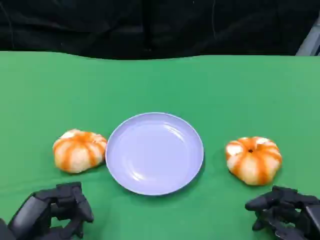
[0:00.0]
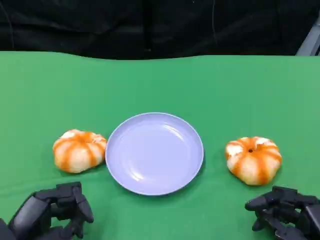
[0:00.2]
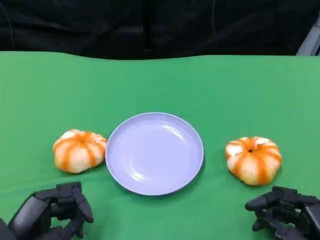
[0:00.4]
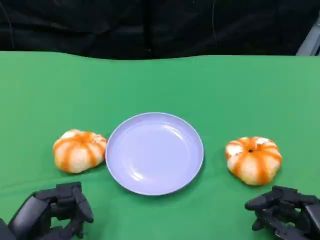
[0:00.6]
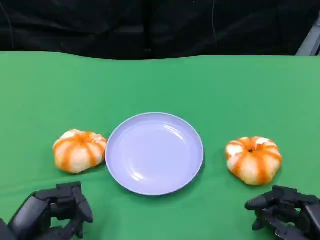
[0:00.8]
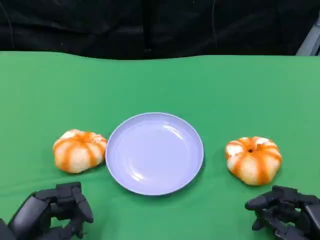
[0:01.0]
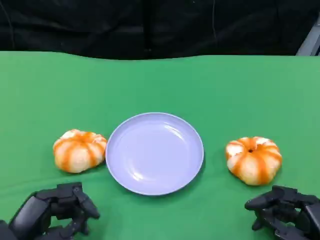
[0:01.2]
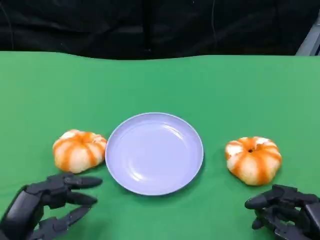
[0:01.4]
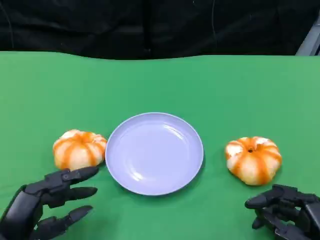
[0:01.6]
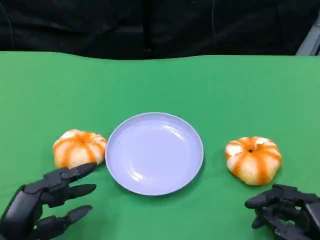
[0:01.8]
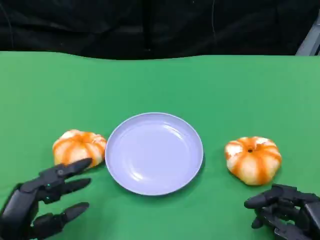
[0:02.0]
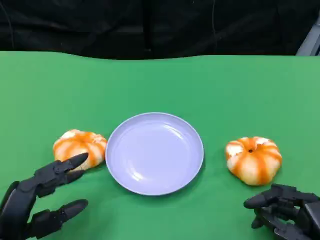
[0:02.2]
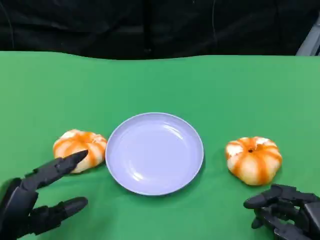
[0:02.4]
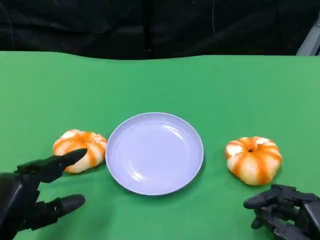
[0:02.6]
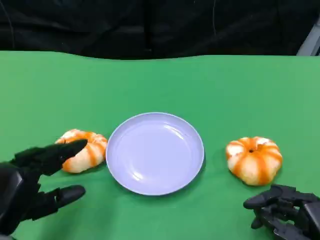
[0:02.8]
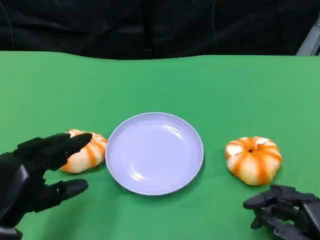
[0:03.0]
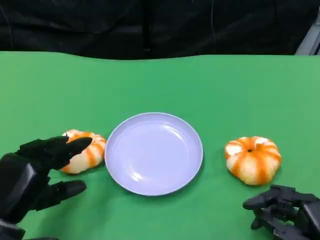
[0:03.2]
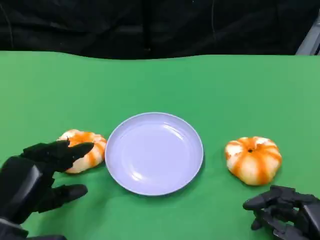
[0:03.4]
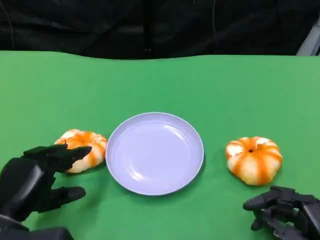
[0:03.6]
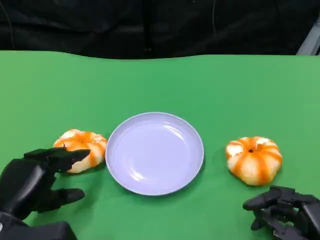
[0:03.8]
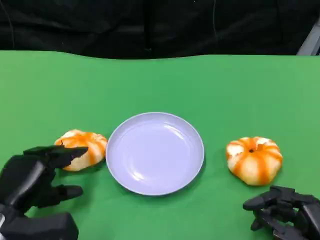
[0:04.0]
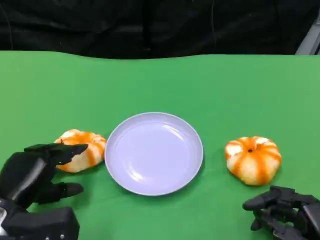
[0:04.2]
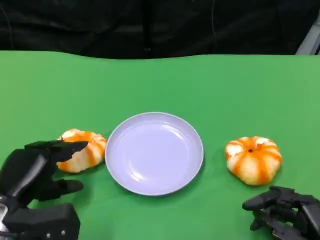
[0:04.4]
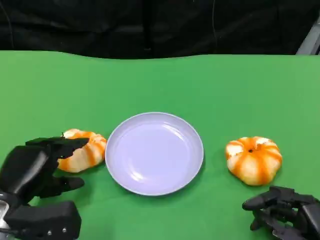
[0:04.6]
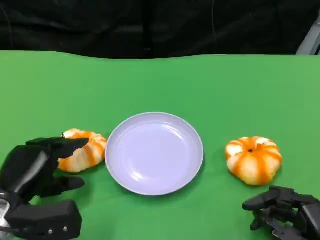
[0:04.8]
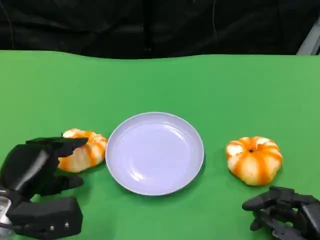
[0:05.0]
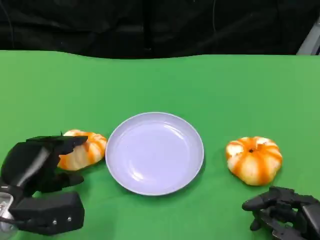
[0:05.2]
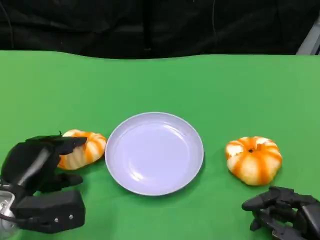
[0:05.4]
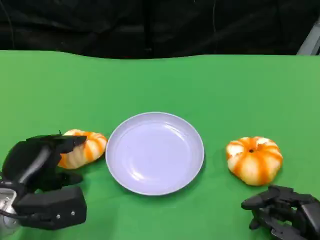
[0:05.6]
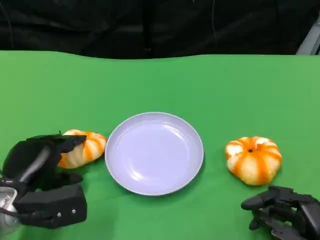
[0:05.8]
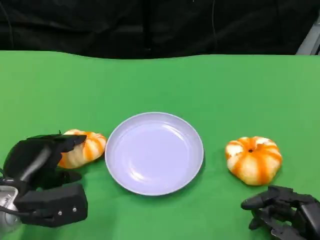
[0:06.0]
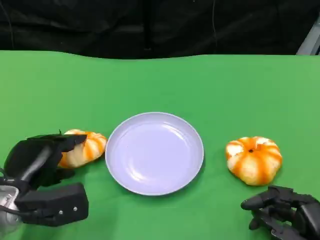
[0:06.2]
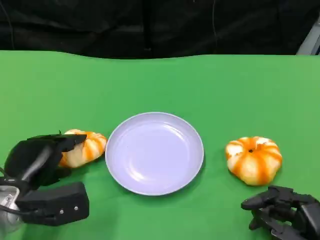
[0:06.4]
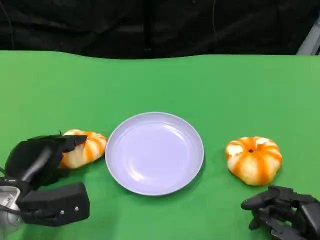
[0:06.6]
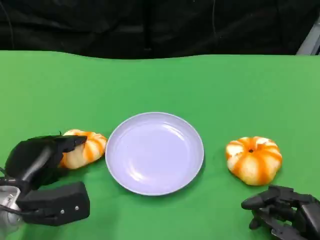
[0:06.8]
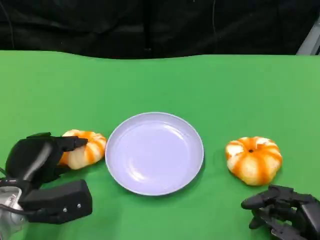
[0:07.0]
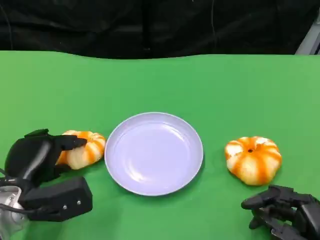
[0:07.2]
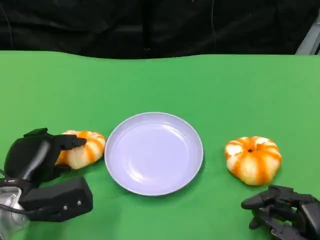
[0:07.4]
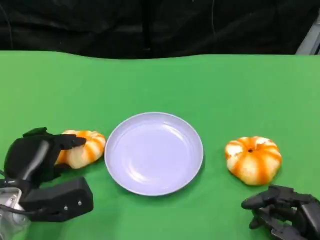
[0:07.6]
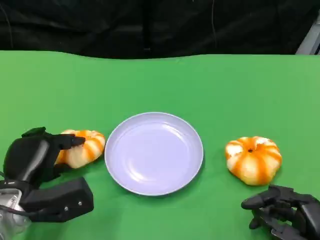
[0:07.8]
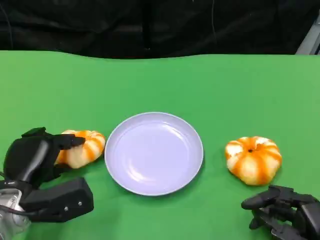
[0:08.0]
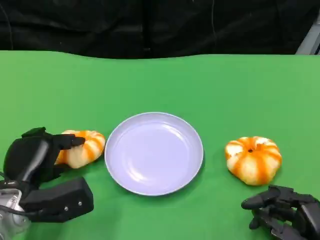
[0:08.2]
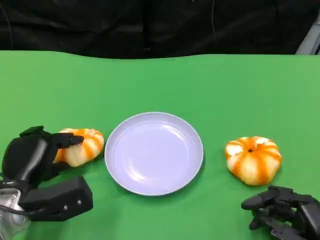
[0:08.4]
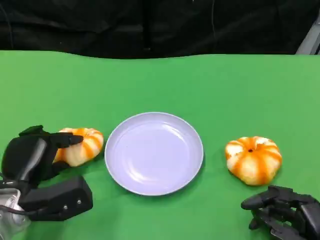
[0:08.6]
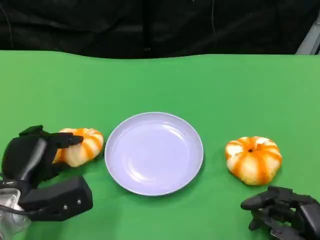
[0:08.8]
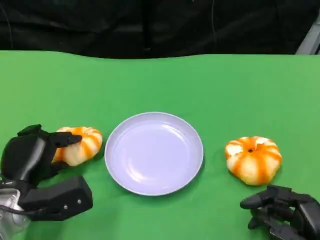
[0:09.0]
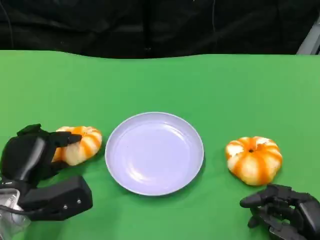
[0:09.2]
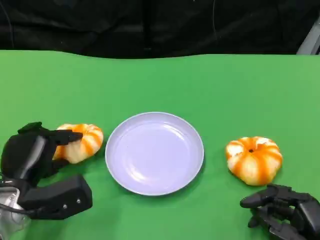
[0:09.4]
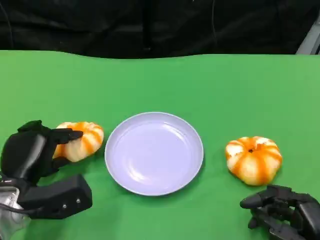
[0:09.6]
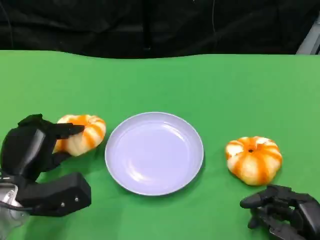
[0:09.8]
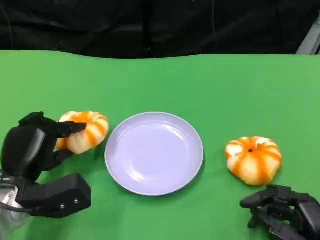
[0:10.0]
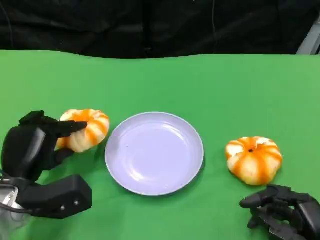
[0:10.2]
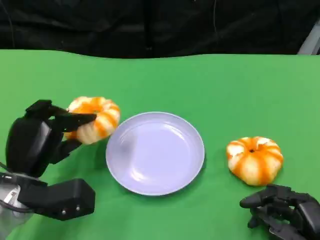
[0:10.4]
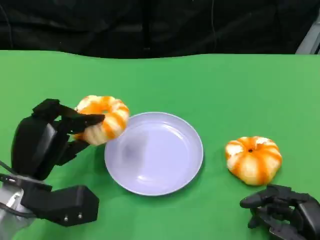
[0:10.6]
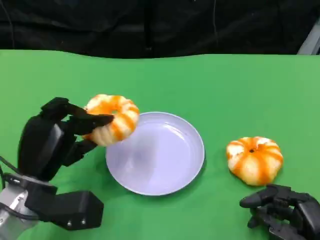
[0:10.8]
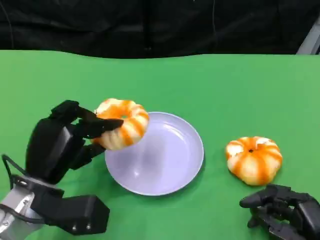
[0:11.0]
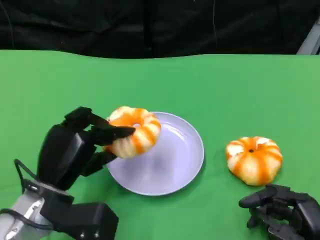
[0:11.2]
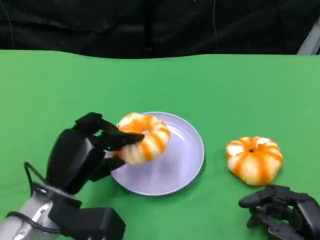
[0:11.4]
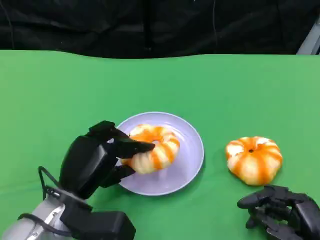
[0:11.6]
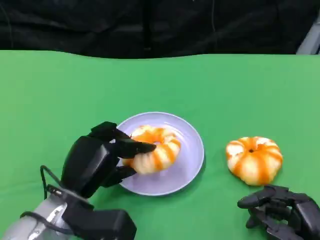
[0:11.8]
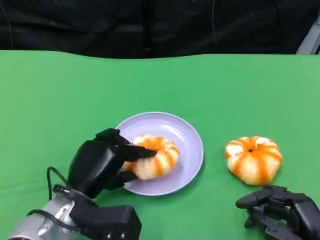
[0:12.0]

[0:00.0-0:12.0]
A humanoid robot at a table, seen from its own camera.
Task of the whole recording: Grasp the bread from the table and place it into the plate.
0:00.0 to 0:01.6: The hands make only small movements.
0:03.0 to 0:04.4: The left hand moves about 5 cm.
0:04.4 to 0:07.6: The hands make only small movements.
0:07.6 to 0:09.0: Neither hand changes place.
0:09.0 to 0:10.4: The hands make only small movements.
0:10.4 to 0:12.0: The left hand moves to the right, approximately 5 cm.

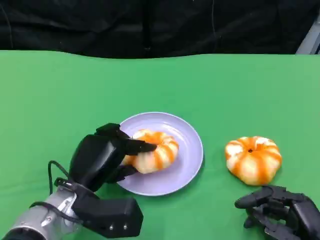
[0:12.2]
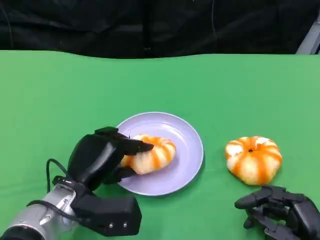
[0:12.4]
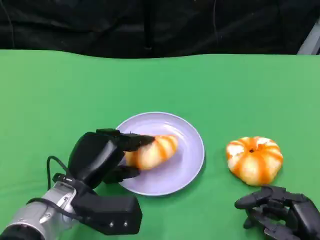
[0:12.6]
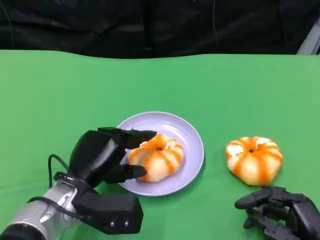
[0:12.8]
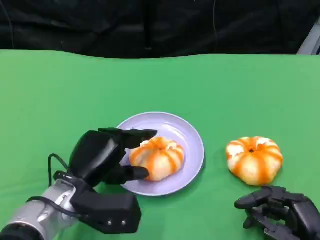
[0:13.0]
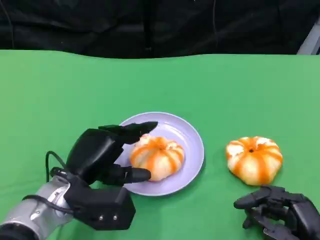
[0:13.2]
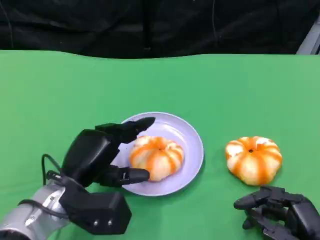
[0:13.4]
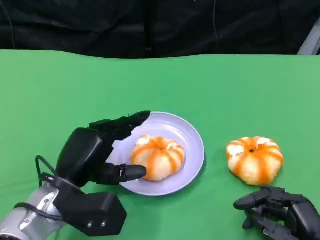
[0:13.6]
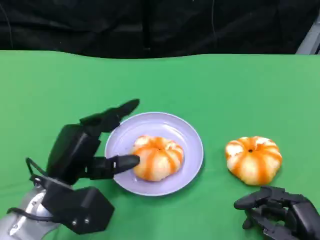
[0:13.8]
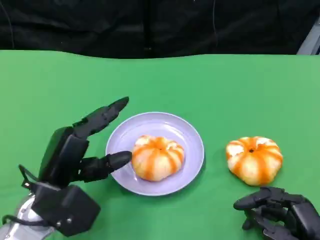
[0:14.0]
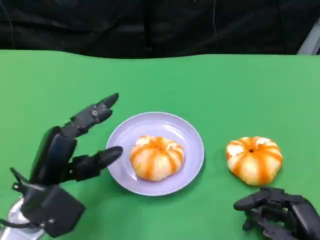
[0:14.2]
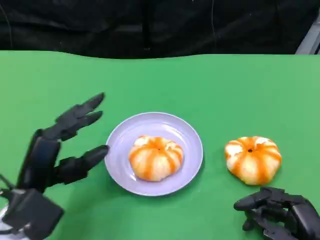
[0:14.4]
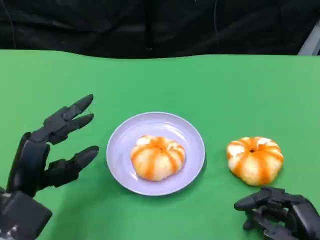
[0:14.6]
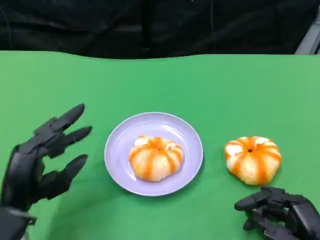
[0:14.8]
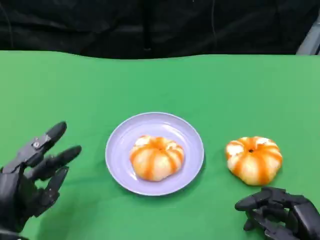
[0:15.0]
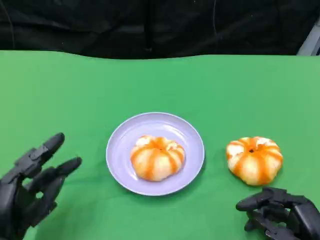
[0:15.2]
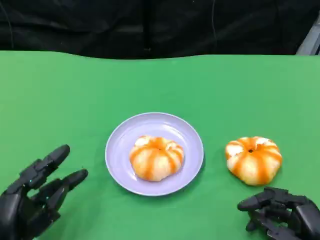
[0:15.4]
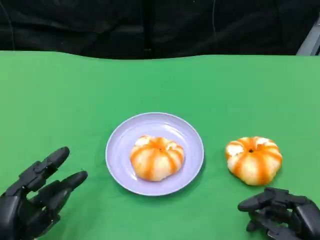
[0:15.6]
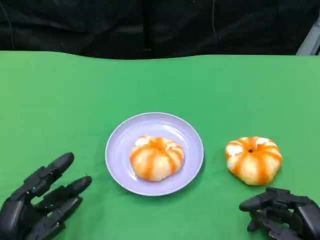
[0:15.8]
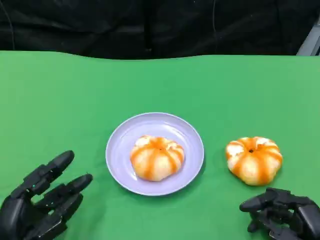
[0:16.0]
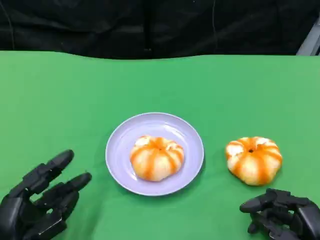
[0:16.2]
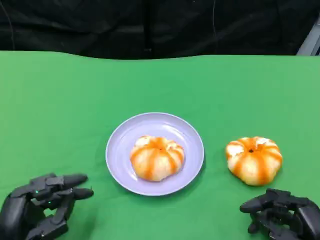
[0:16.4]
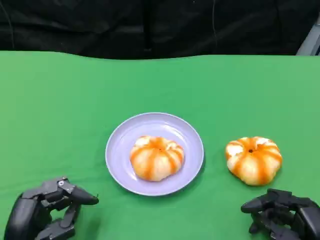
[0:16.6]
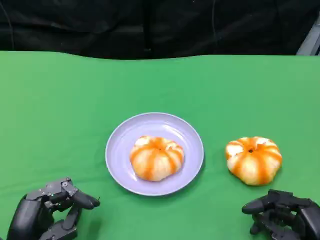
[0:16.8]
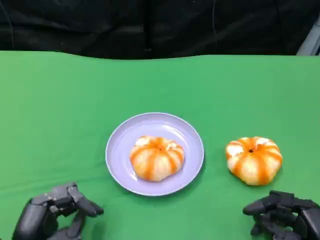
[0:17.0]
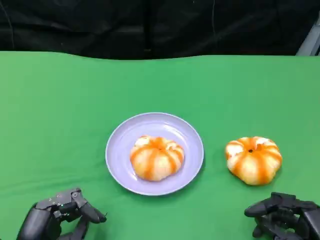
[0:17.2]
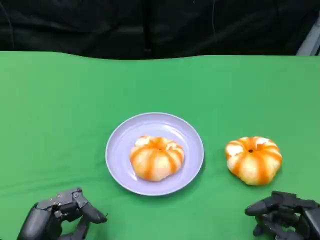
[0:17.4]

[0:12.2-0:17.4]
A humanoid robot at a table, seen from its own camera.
Task of the whole recording: Grasp the bread from the table and place it into the plate.
0:12.2 to 0:14.0: The left hand moves about 5 cm.
0:14.0 to 0:15.6: The left hand shifts approximately 10 cm backward, to the left and downward.
0:15.6 to 0:17.4: The hands make only small movements.

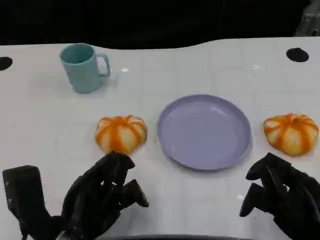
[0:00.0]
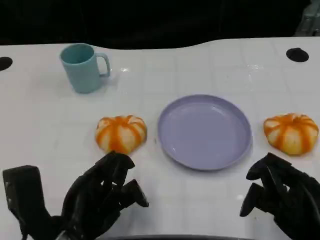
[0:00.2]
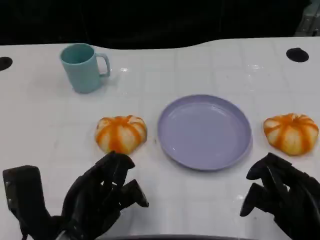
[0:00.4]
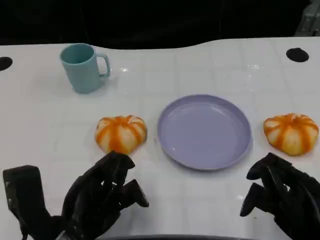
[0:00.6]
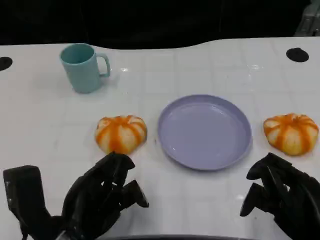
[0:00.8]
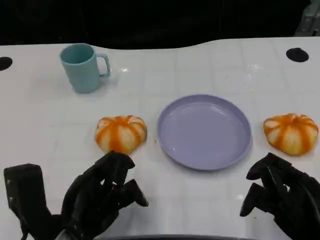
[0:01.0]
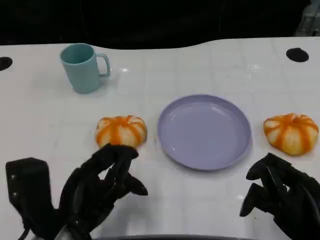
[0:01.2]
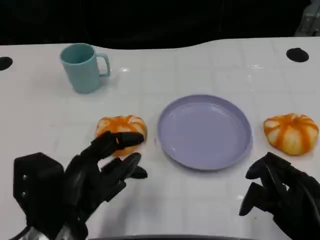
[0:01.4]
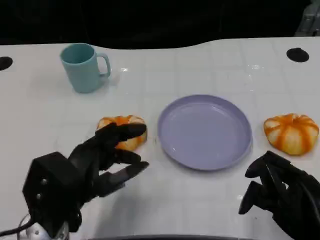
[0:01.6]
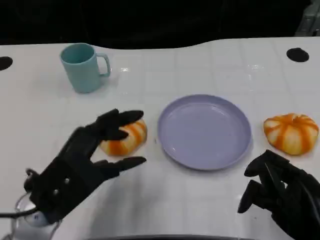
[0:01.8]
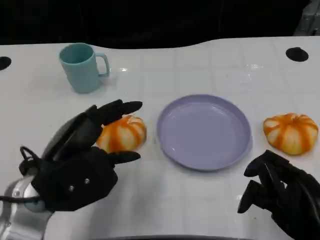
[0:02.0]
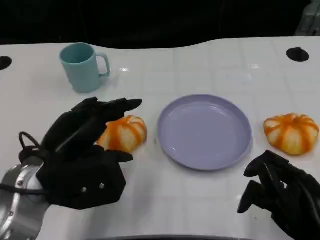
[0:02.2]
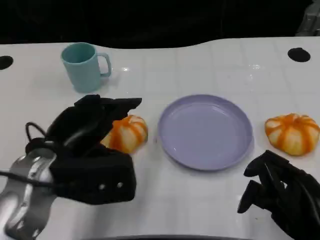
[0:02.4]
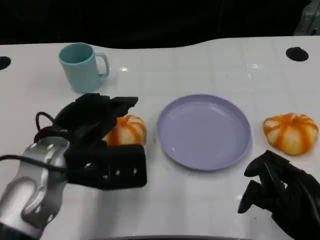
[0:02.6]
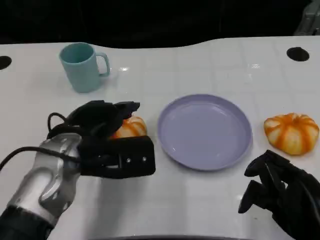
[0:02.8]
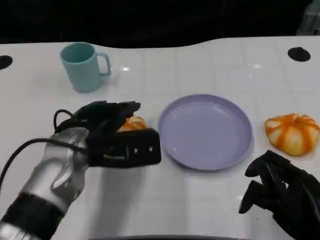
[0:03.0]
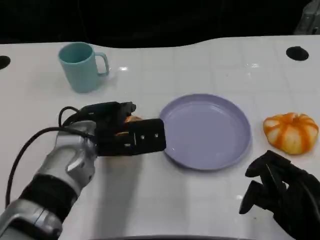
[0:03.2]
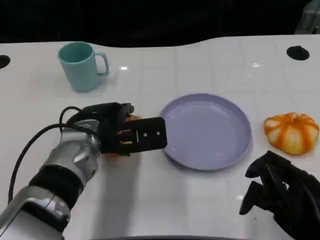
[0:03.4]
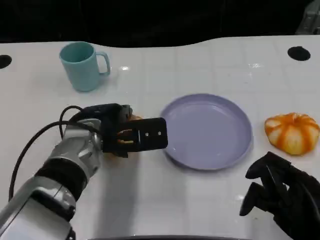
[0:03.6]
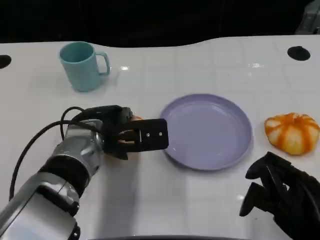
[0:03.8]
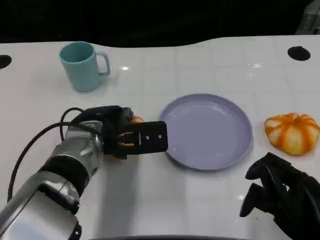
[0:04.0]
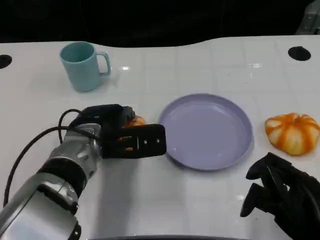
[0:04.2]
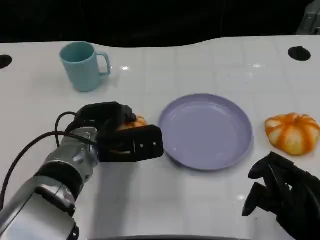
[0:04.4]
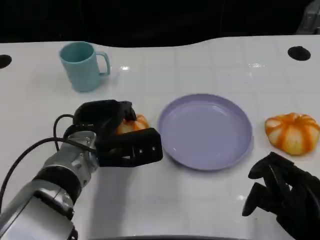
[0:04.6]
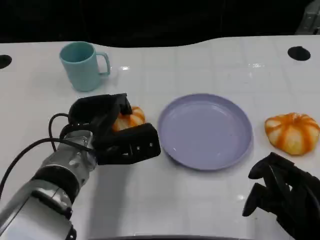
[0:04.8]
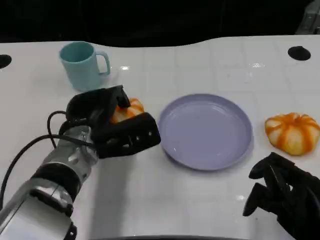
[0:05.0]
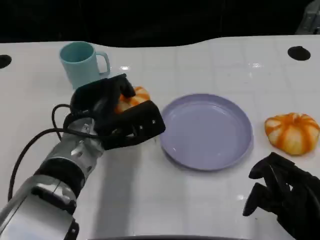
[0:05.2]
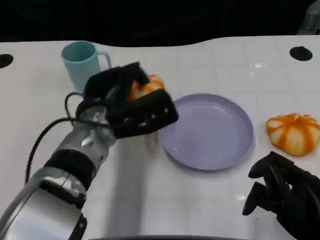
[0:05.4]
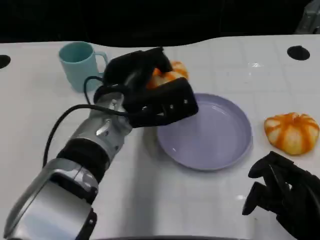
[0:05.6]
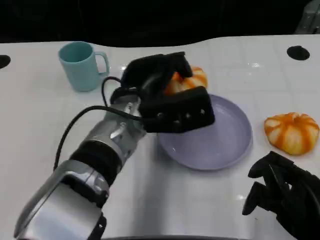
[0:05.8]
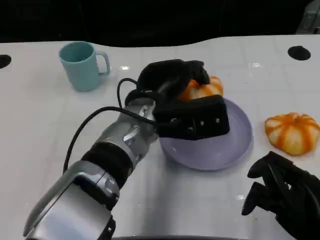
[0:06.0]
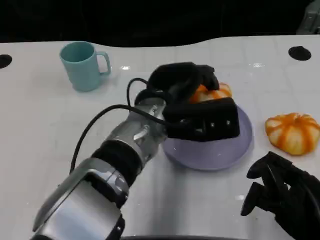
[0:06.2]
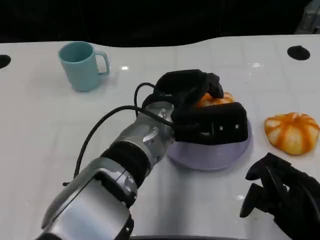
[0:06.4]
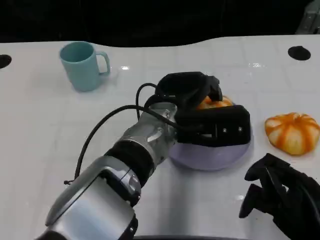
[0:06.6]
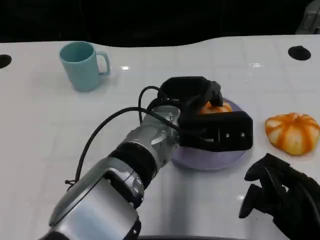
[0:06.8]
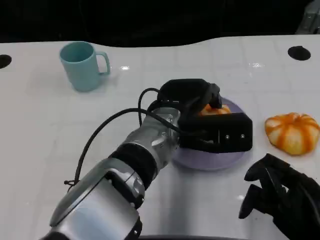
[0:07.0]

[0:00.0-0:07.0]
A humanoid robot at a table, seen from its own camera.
Task of the whole recording: Grasp the bread from the table and place it into the plate.
0:01.4 to 0:02.8: The left hand goes approximately 10 cm forward.
0:02.8 to 0:04.2: The left hand changes place by about 5 cm.
0:04.2 to 0:05.6: The left hand moves to the right and upward, roughly 5 cm.
0:05.6 to 0:07.0: The left hand shifts about 5 cm to the right.
